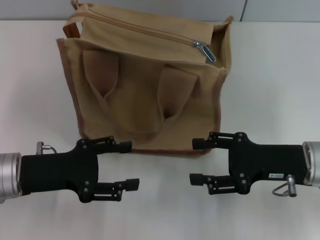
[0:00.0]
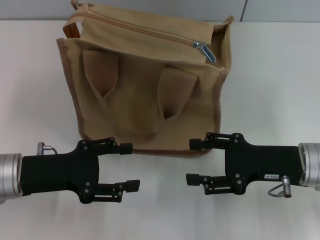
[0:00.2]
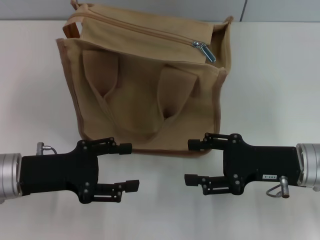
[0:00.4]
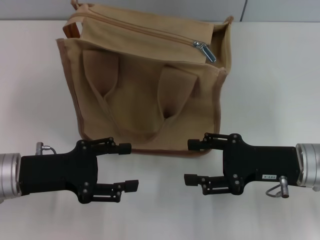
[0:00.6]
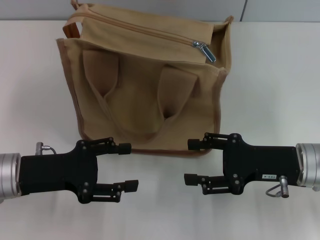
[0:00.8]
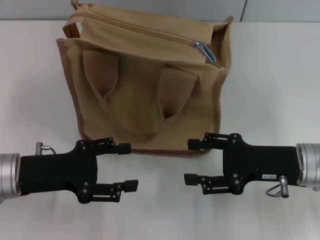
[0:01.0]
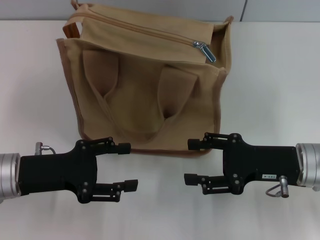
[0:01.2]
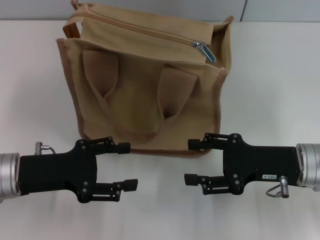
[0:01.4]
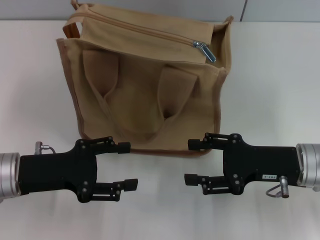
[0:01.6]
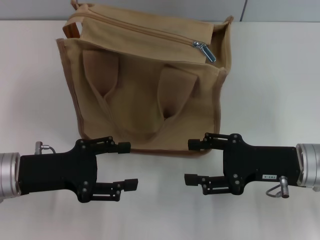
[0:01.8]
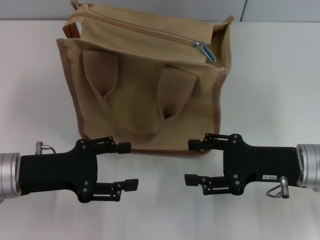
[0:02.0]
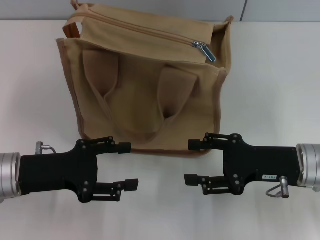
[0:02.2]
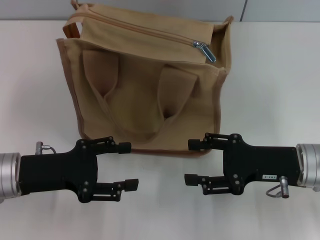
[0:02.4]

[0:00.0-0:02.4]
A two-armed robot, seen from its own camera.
0:00.0 to 0:02.4: Both grippers stay about where they are.

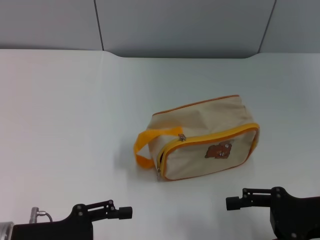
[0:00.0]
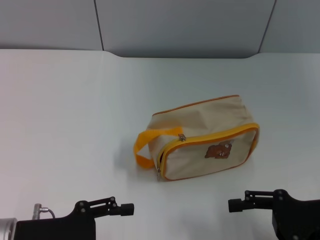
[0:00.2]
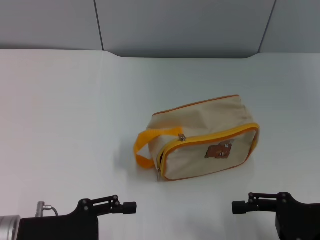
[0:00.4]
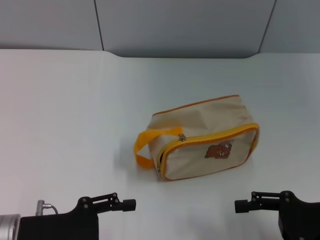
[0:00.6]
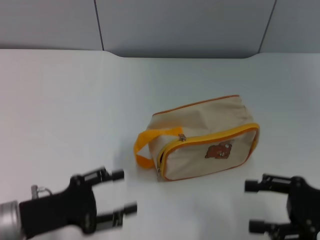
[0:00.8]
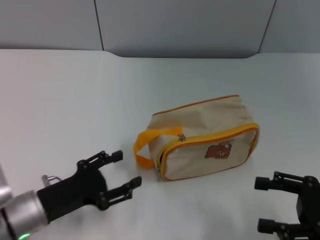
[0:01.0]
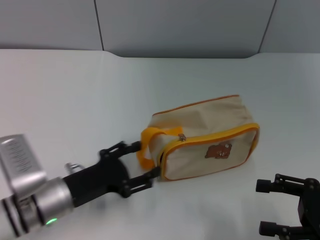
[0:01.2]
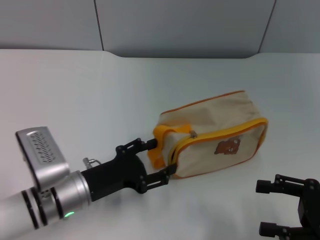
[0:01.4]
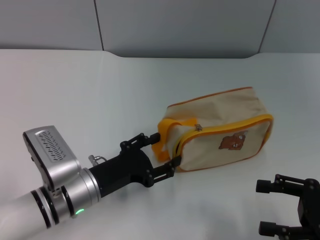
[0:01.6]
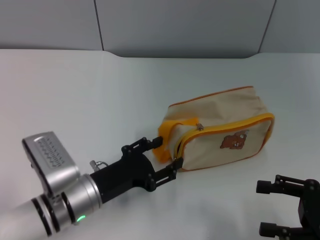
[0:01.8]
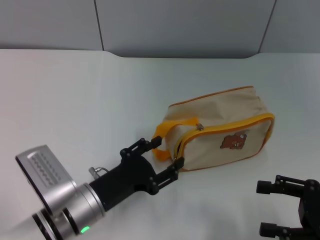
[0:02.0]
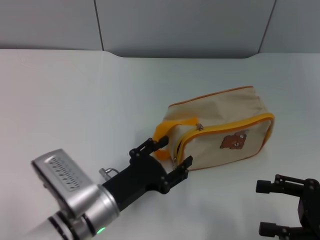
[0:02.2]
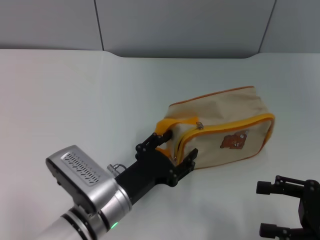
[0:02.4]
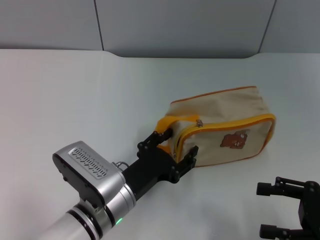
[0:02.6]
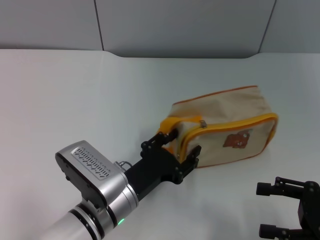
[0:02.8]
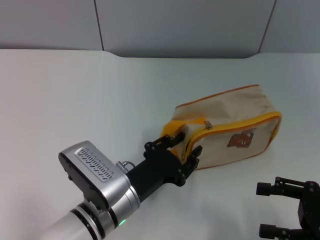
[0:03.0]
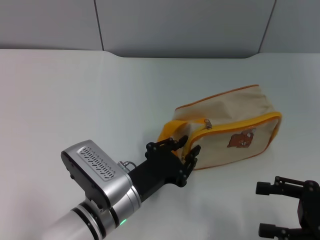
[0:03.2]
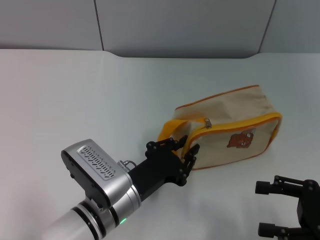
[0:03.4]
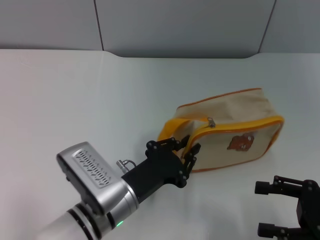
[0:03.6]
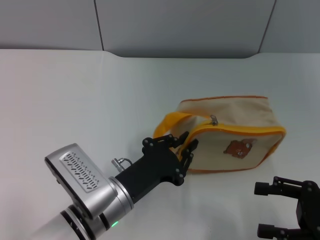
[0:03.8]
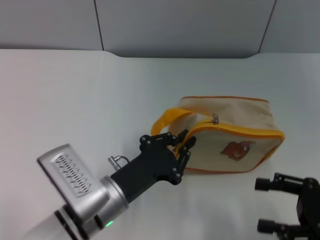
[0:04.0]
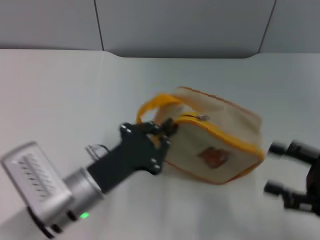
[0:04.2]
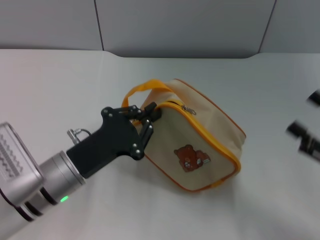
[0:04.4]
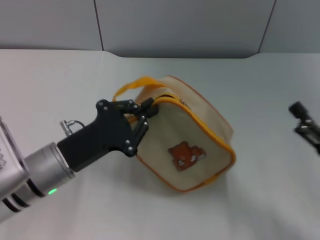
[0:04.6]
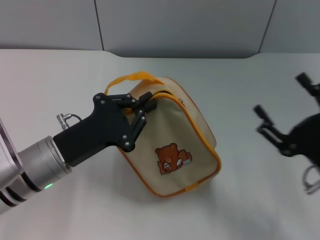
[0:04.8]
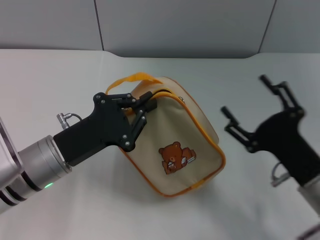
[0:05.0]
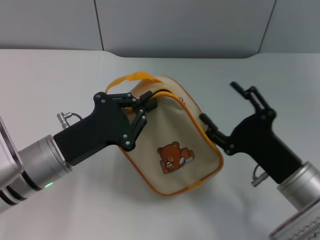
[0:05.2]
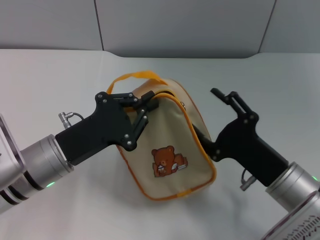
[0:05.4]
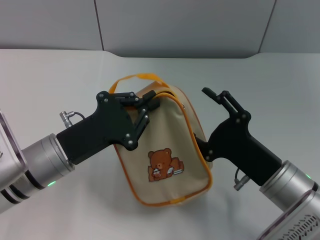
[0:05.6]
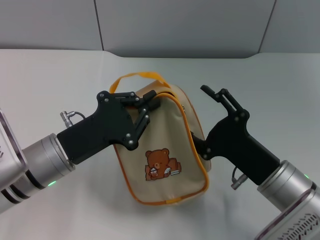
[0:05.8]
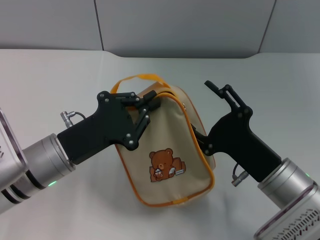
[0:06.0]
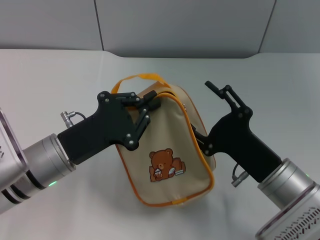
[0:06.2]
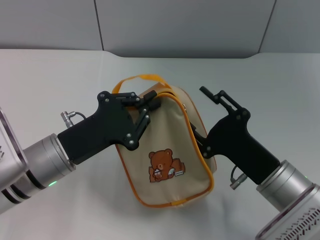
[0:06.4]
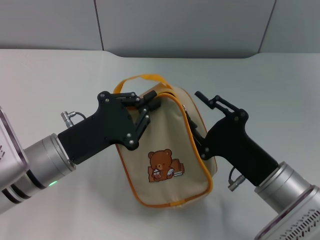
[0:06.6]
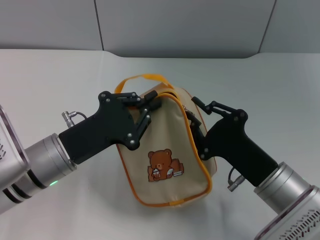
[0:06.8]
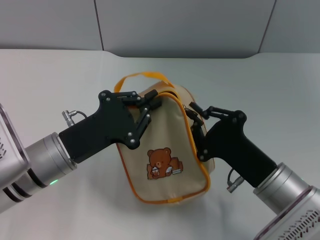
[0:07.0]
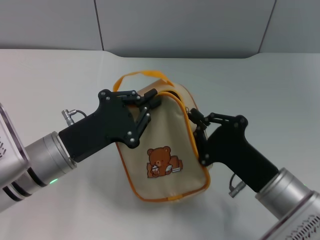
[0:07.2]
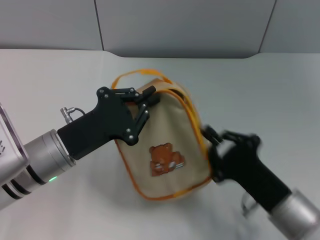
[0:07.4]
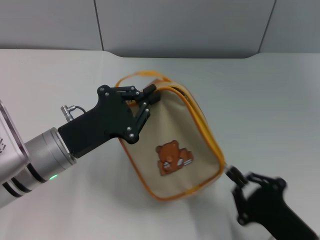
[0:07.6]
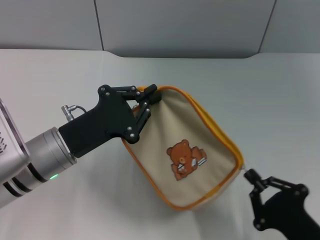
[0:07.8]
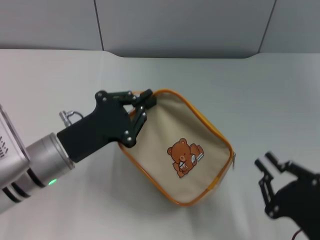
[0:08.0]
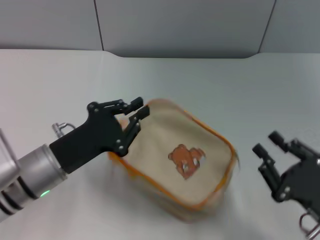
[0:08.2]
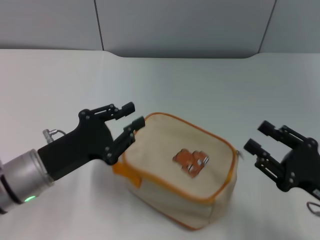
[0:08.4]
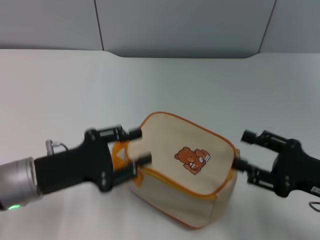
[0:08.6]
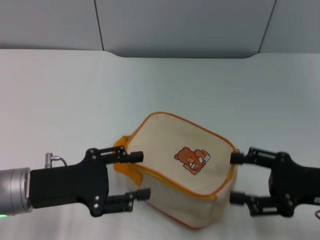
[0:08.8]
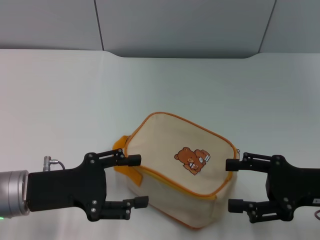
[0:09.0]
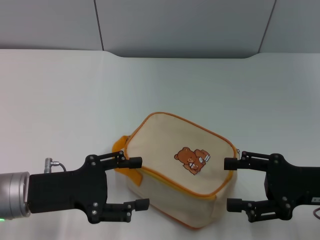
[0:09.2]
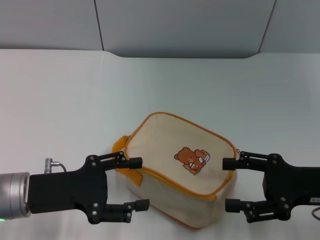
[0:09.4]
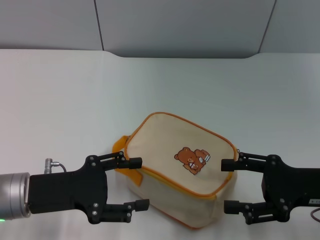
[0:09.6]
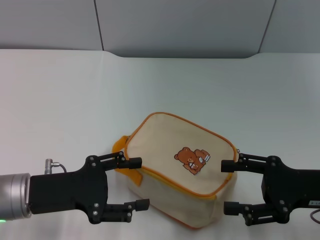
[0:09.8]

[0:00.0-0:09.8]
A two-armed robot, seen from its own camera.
Step, 0:00.0 to 0:04.6: Pick up the bag with left gripper.
Step, 0:04.8 to 0:07.8: Unzip the zipper of bag with right gripper.
Step, 0:08.0 to 0:08.2: Place the bag on the table with left gripper.
0:00.0 to 0:01.4: The left gripper heads to the right and forward, covering roughly 10 cm.
0:01.4 to 0:02.8: The left gripper travels to the right by roughly 5 cm.
0:02.8 to 0:04.2: The left gripper travels to the left by roughly 5 cm, and closes.
0:04.2 to 0:05.6: The right gripper goes about 15 cm to the left. Meanwhile the left gripper changes place by roughly 5 cm.
0:05.6 to 0:07.0: The right gripper closes.
0:07.0 to 0:08.4: The right gripper shifts some 10 cm to the right.
0:08.4 to 0:09.8: The left gripper opens its fingers. Meanwhile the right gripper changes place by roughly 5 cm, and opens up.

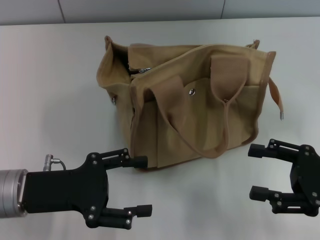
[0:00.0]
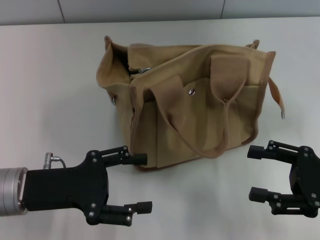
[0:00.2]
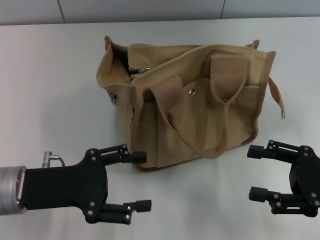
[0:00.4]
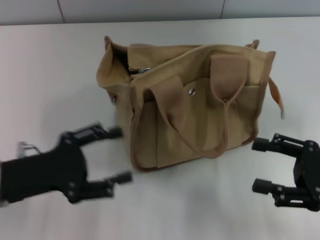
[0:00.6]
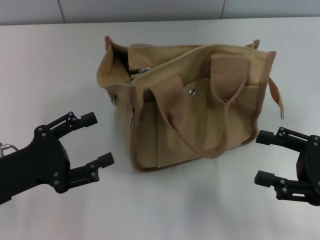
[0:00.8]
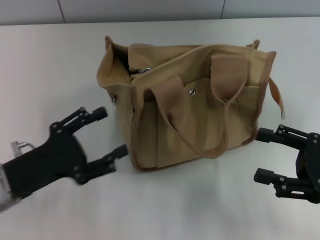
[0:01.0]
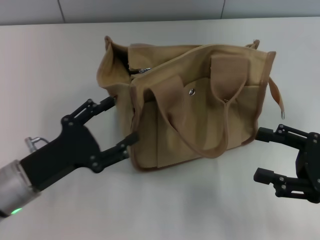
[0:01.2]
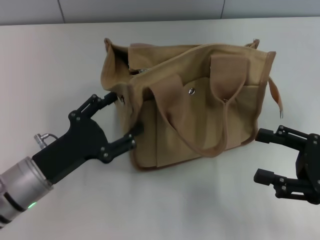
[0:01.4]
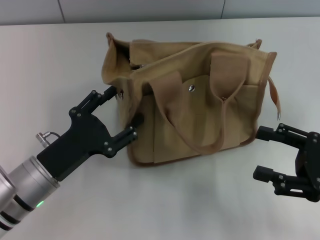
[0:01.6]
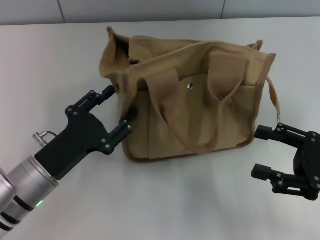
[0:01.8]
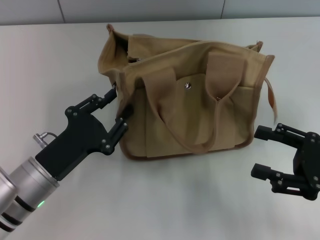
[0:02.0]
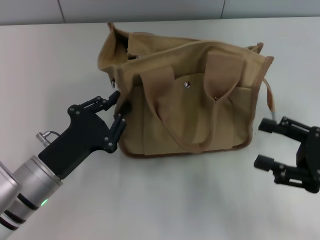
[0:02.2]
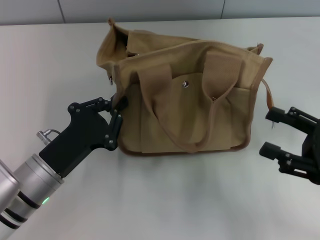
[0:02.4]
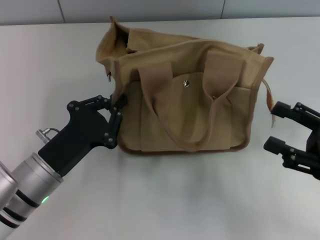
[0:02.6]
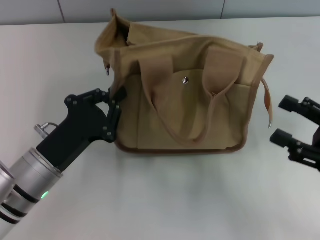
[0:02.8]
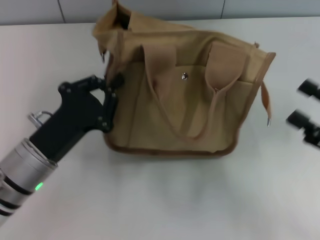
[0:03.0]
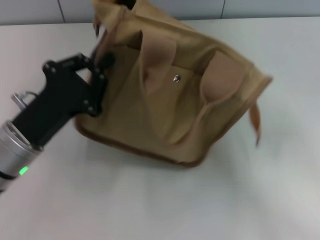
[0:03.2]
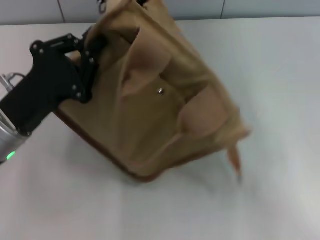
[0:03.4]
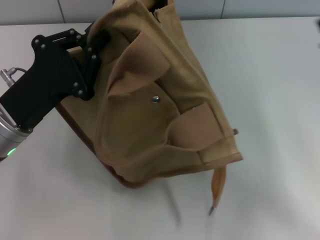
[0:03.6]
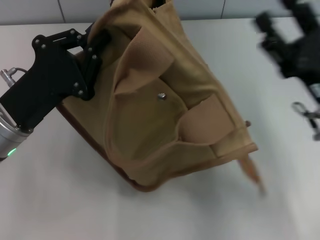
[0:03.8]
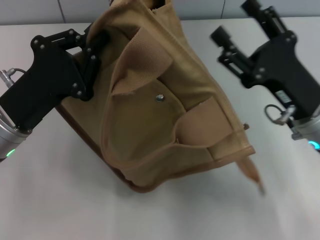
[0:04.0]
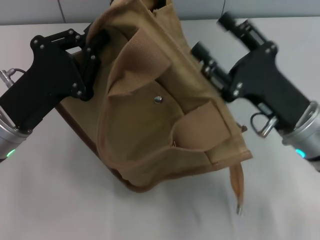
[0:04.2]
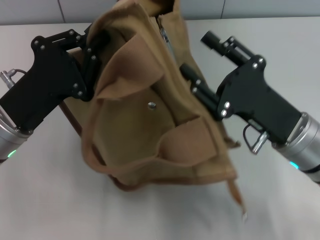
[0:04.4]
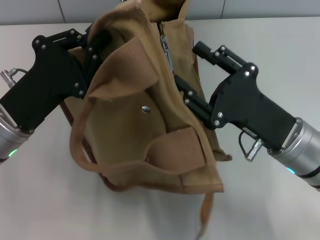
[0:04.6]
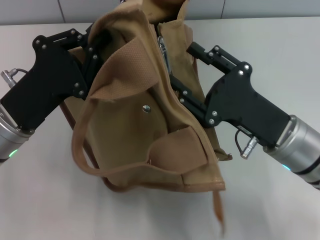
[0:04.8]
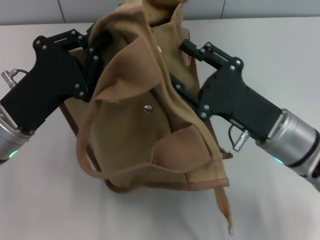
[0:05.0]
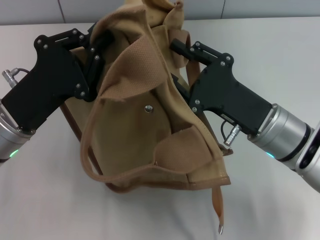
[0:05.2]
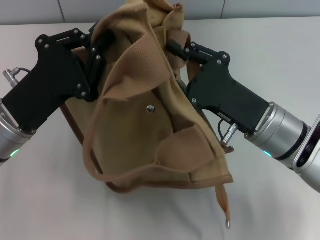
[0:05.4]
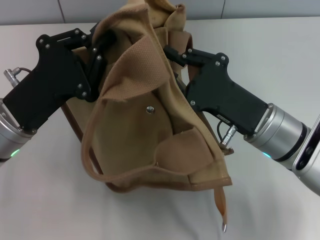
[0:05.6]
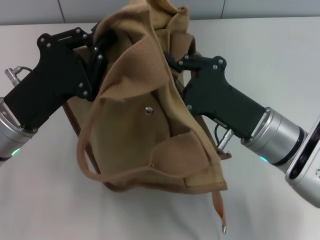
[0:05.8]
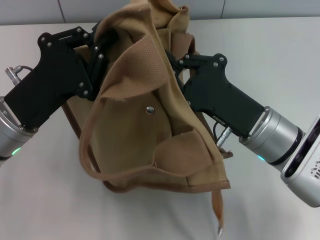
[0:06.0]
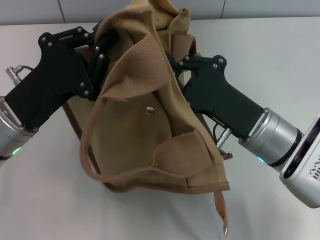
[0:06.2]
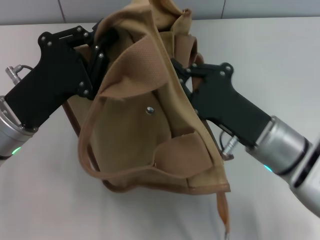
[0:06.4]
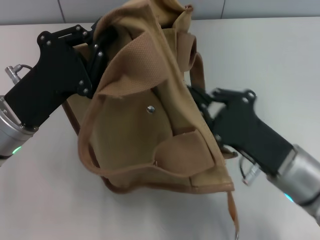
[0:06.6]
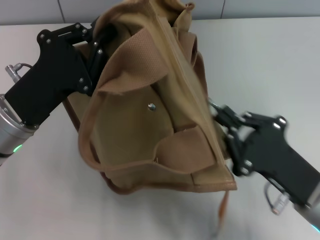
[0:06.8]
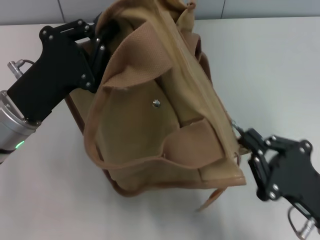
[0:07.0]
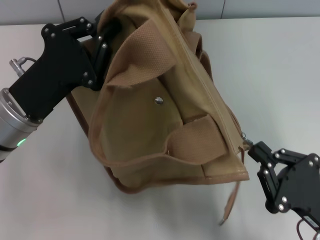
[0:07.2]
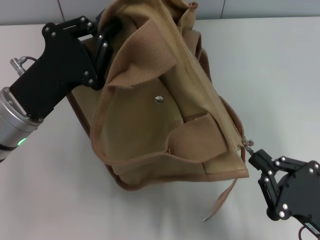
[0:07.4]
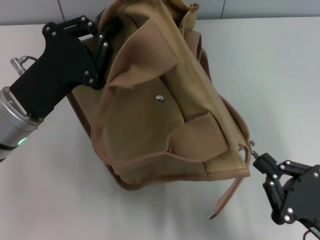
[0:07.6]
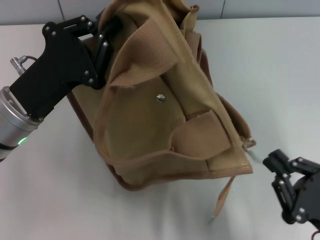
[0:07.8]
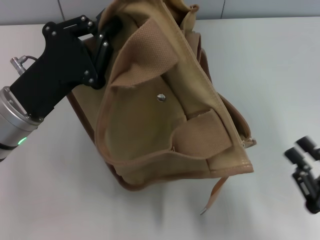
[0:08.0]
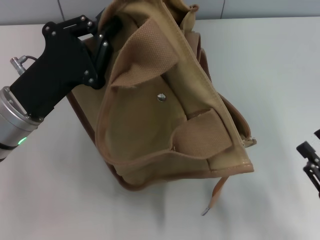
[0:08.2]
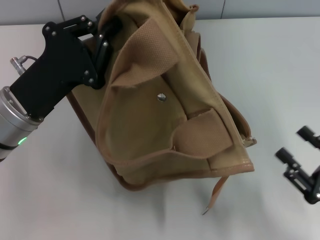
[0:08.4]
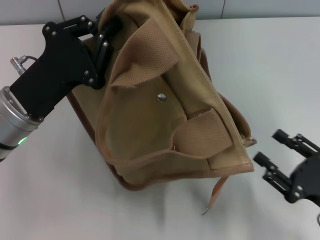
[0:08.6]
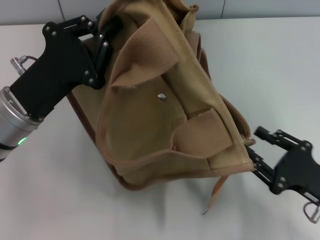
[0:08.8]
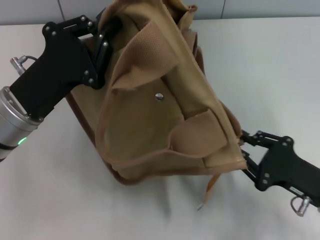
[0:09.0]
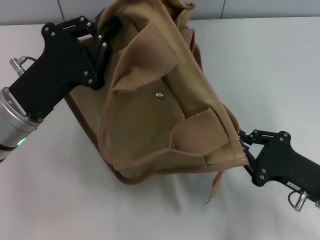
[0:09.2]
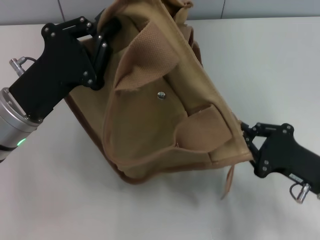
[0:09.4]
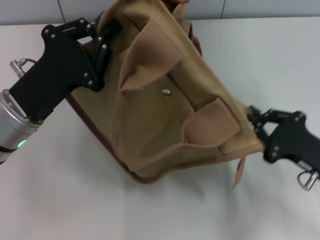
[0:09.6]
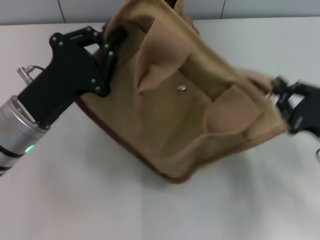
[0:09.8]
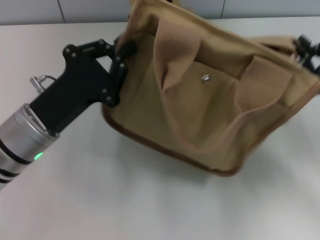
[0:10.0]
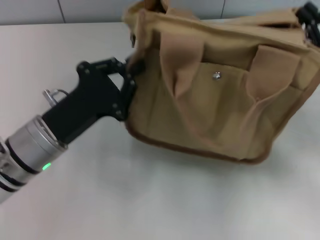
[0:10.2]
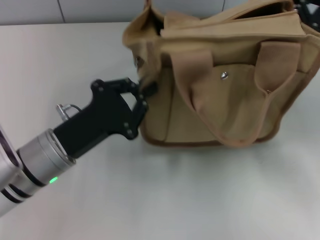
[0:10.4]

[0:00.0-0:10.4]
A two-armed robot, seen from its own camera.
Step, 0:00.0 to 0:07.6: Pull open the zipper with your right hand.
0:01.4 to 0:03.0: The left gripper closes.
0:03.0 to 0:04.4: The right gripper goes about 15 cm to the left, while the left gripper ends up about 5 cm from where it was.
0:04.4 to 0:06.0: The right gripper closes.
0:06.0 to 0:07.4: The right gripper moves backward and to the right, roughly 15 cm.
0:07.4 to 0:09.0: The right gripper shifts roughly 5 cm forward, and opens its fingers.
0:09.0 to 0:10.4: The right gripper shifts approximately 15 cm forward and upward, and closes up, while the left gripper moves approximately 5 cm.
